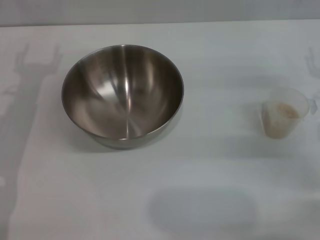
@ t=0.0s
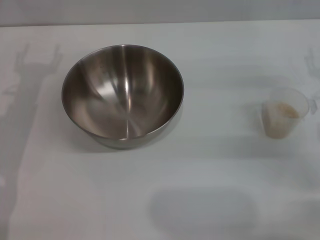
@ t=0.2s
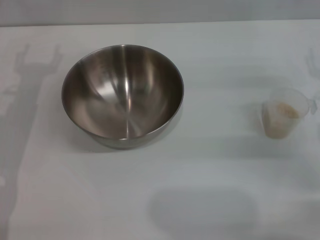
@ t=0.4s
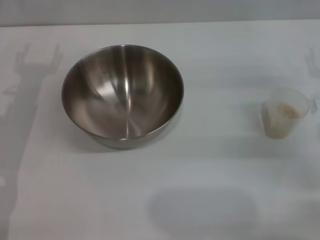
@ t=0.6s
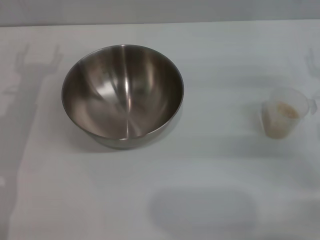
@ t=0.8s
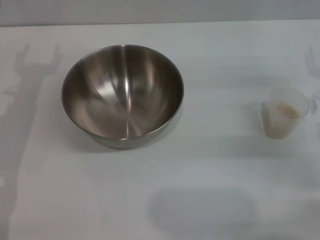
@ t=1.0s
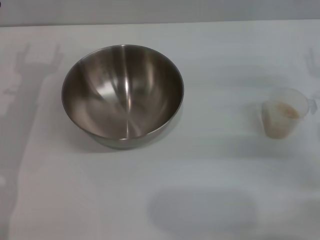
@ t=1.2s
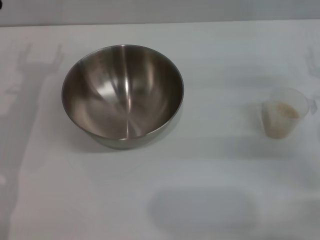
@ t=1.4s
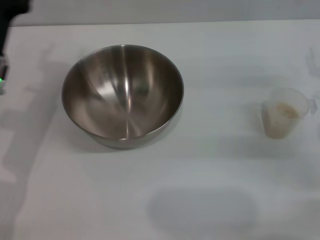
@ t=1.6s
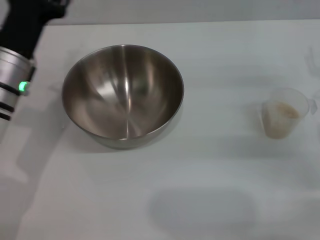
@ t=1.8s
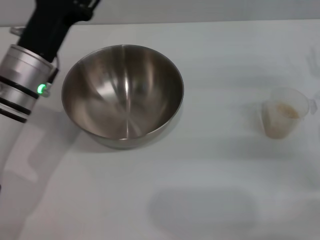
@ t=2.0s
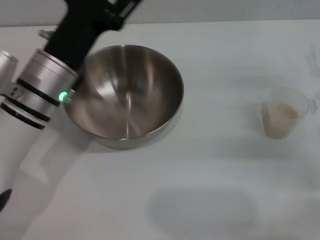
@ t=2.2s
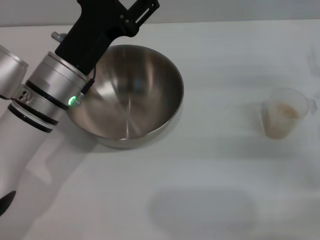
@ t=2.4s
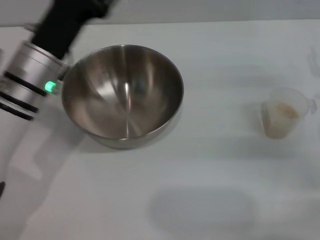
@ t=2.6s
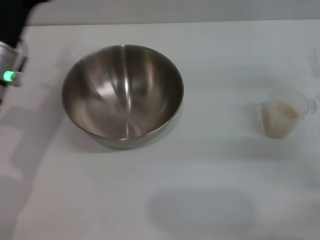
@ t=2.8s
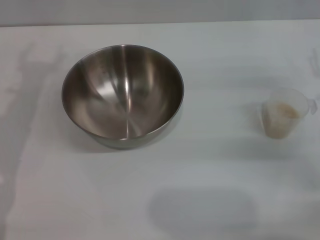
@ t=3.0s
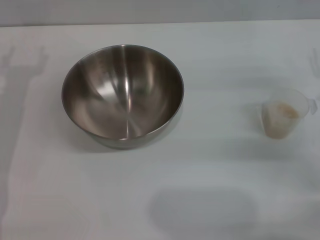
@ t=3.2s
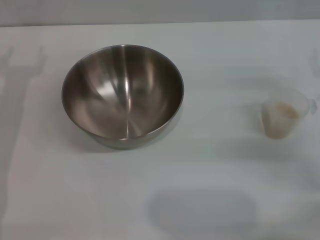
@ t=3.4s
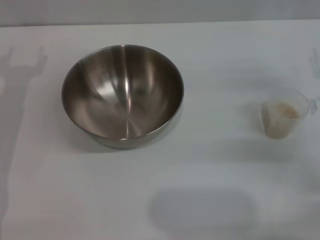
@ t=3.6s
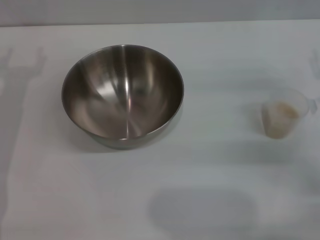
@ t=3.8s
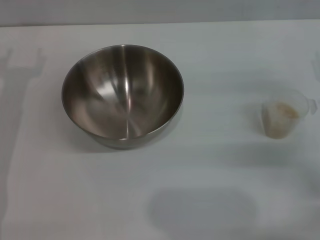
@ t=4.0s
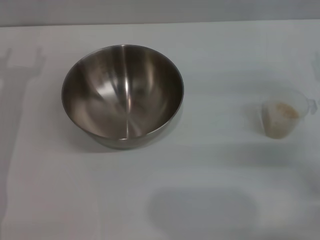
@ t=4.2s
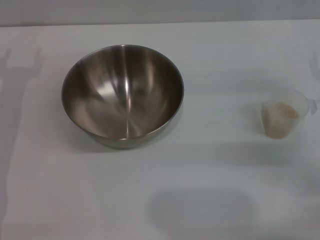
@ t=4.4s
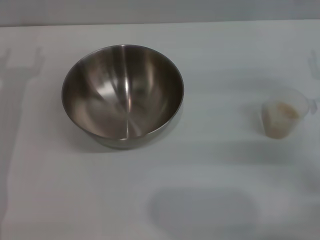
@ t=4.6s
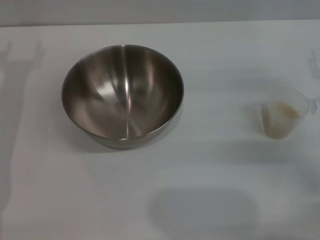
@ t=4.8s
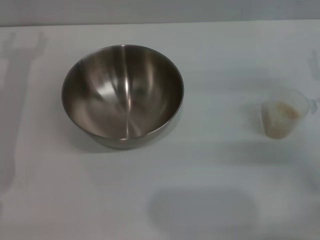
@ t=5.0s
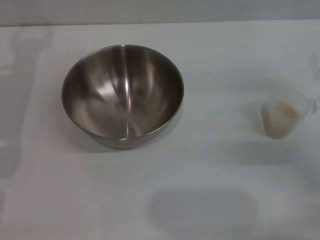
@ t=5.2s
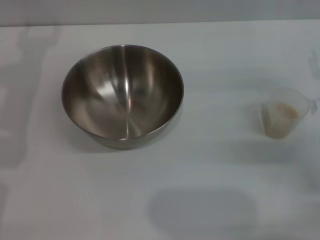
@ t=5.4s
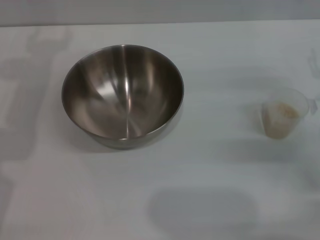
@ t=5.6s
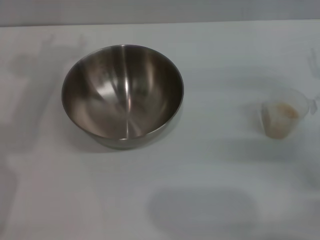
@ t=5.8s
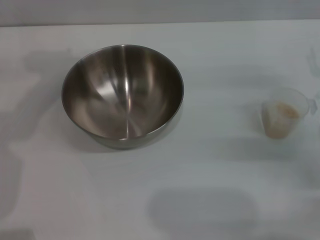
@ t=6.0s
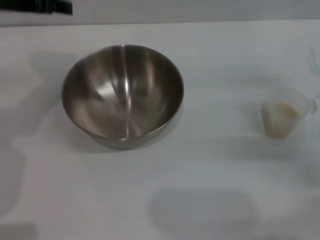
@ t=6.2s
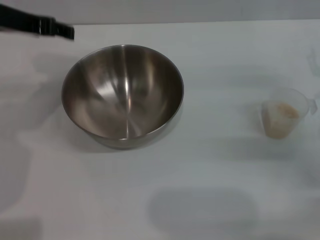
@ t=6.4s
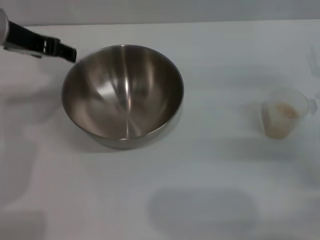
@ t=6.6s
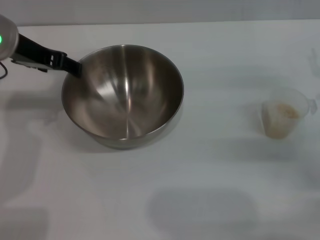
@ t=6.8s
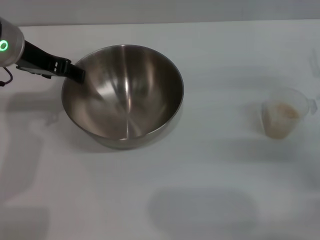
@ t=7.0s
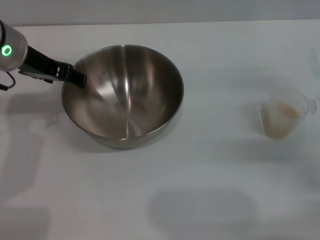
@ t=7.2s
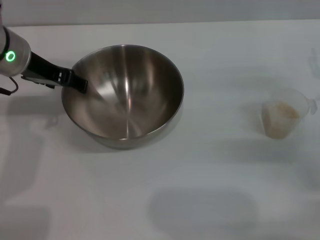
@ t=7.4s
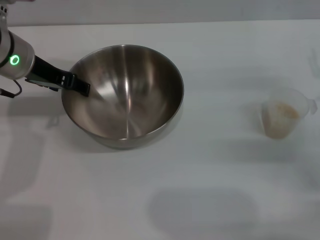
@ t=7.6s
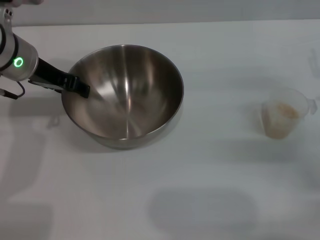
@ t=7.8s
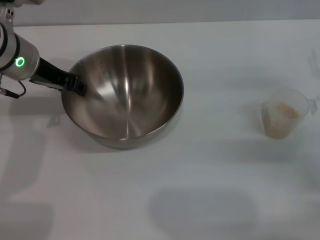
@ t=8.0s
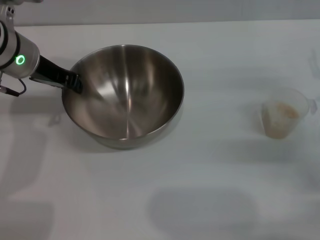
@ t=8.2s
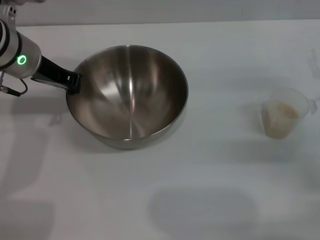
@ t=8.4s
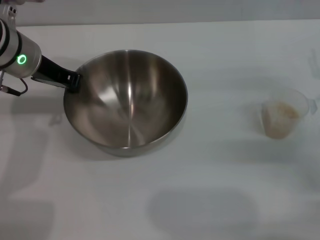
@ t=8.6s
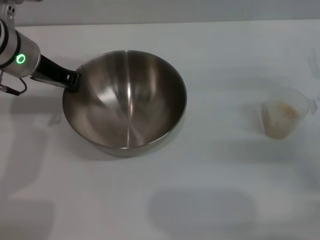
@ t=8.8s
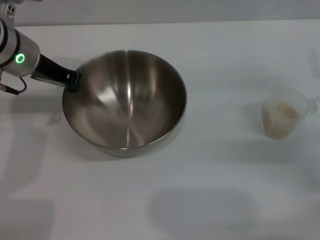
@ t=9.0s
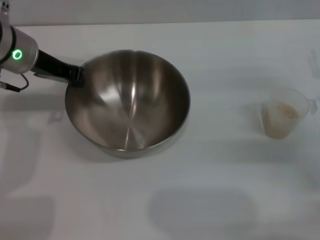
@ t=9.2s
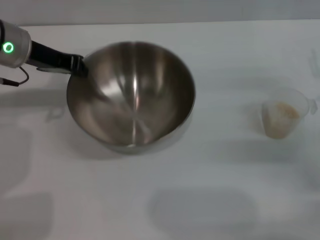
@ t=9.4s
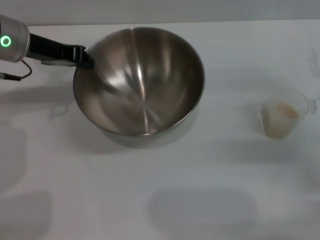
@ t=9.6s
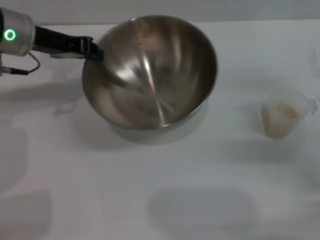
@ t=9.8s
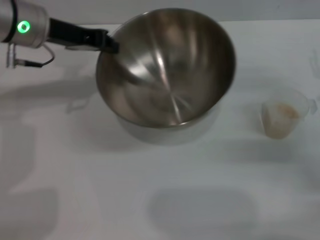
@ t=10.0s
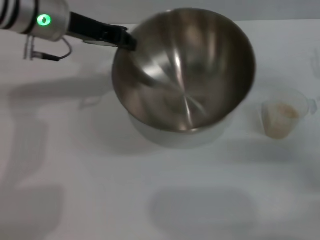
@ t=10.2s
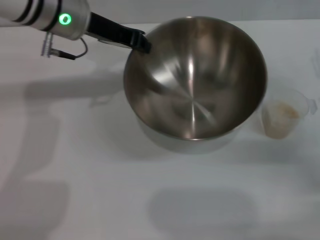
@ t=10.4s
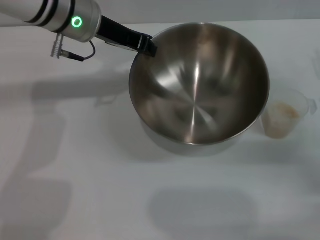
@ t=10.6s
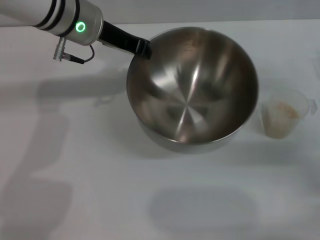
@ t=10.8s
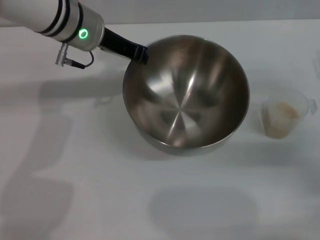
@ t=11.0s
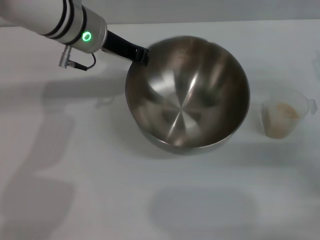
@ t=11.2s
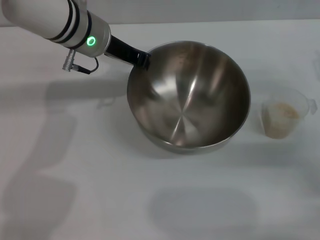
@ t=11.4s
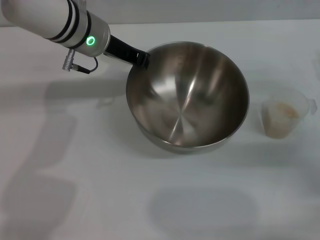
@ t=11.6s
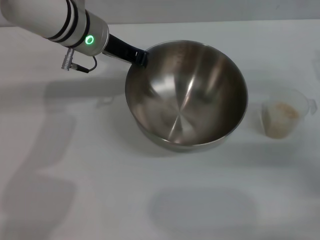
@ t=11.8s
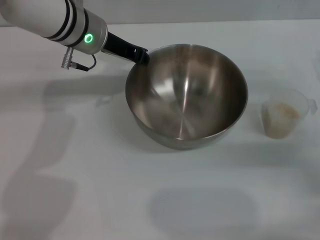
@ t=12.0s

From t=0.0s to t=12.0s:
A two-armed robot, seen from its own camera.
Task of the whole recording: Place the bowl in the middle of the table with one hand and pour the rice from the grain cup into it with the other hand.
Step, from t=0.0s to t=10.0s: Pick up the bowl with the left gripper.
From t=0.0s to t=1.6s: The grippers stay close to where they were, moving slightly.
From t=1.6s to t=3.0s: The left gripper reaches about 10 cm to the right, then returns.
From t=6.0s to t=7.6s: The left gripper goes some 10 cm downward.
From t=7.6s to t=9.0s: The left gripper closes.
From t=9.0s to t=10.4s: The left gripper heads to the right, covering roughly 5 cm.
From t=10.4s to t=12.0s: The grippers stay close to where they were, moving slightly.

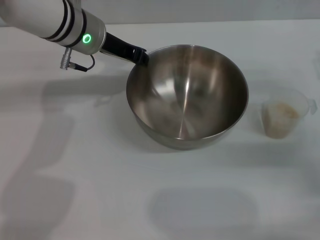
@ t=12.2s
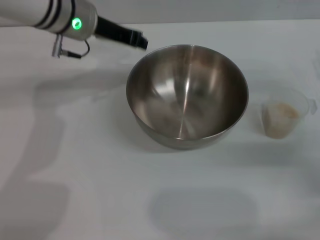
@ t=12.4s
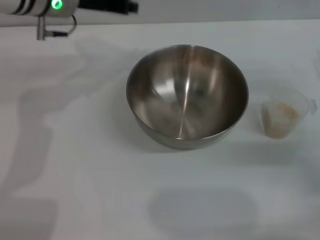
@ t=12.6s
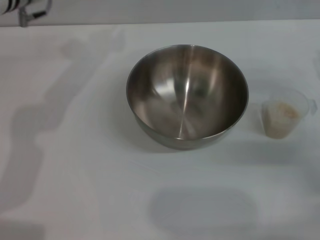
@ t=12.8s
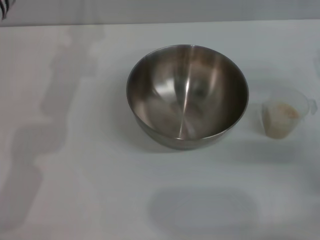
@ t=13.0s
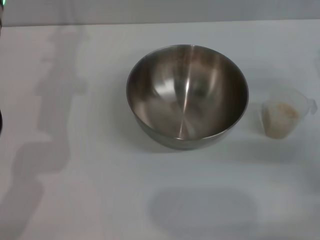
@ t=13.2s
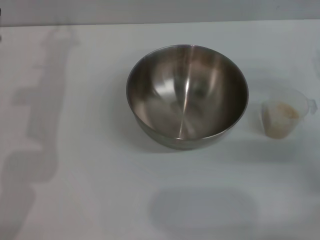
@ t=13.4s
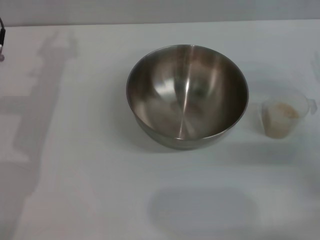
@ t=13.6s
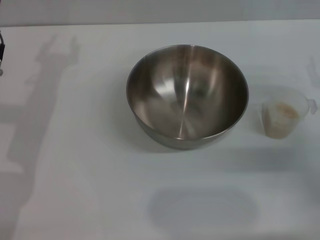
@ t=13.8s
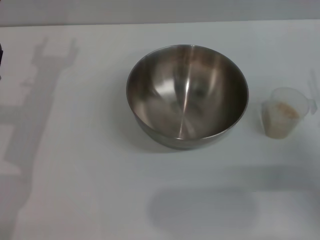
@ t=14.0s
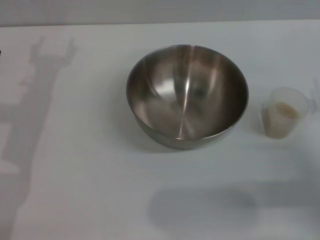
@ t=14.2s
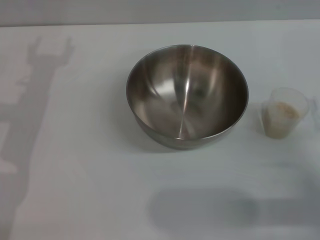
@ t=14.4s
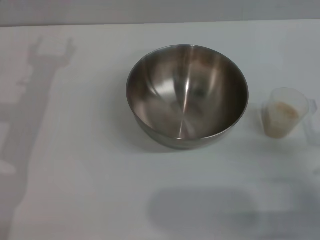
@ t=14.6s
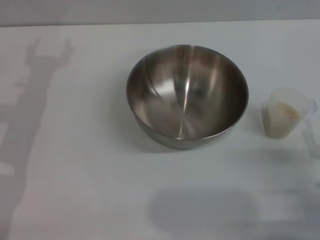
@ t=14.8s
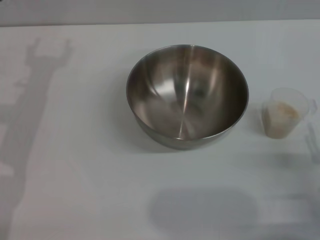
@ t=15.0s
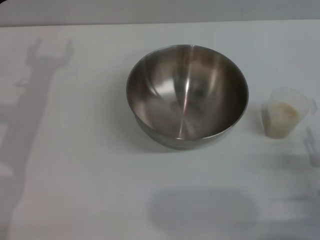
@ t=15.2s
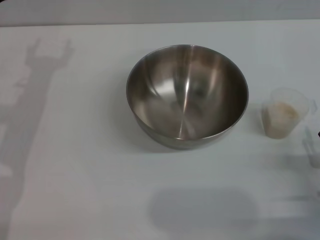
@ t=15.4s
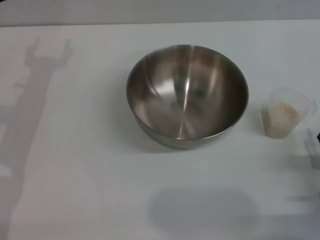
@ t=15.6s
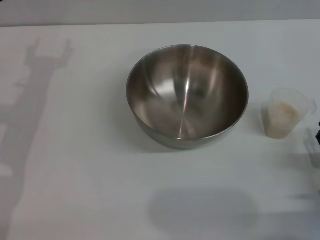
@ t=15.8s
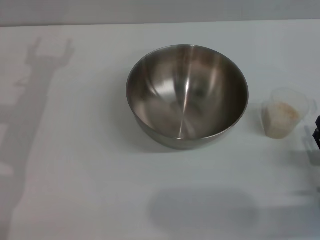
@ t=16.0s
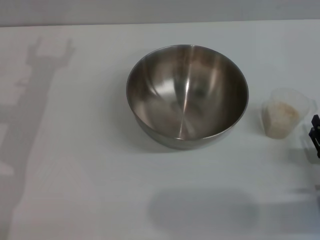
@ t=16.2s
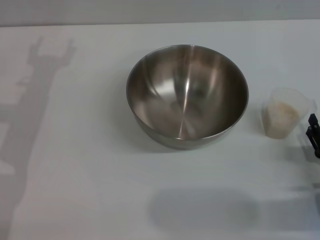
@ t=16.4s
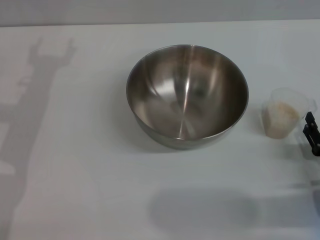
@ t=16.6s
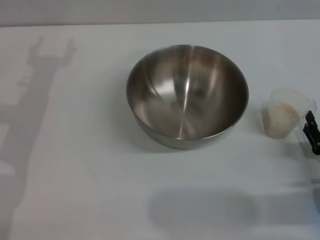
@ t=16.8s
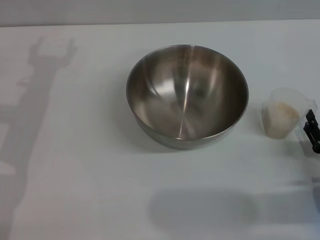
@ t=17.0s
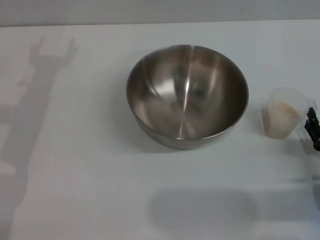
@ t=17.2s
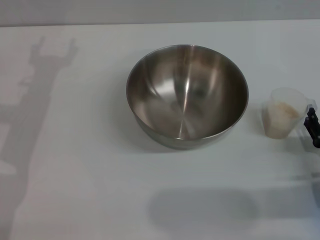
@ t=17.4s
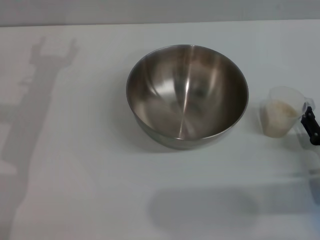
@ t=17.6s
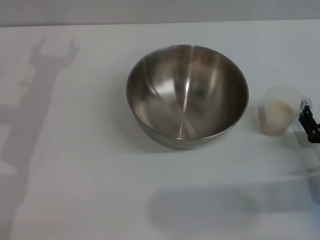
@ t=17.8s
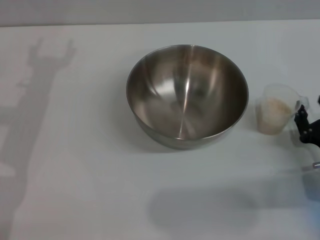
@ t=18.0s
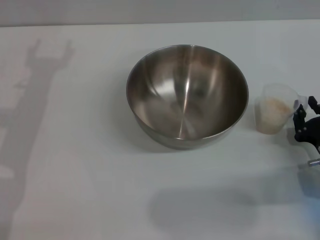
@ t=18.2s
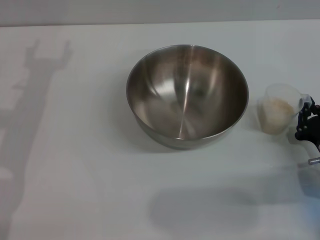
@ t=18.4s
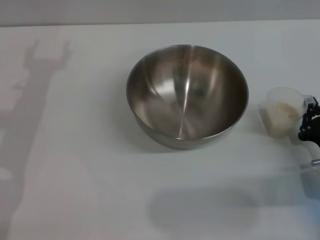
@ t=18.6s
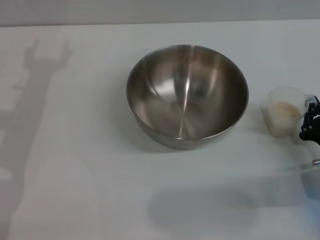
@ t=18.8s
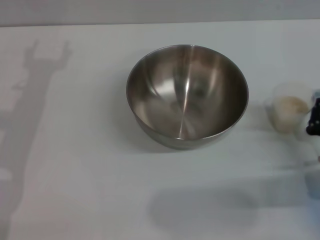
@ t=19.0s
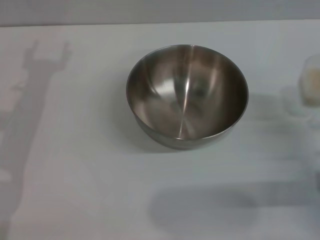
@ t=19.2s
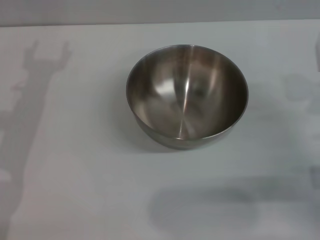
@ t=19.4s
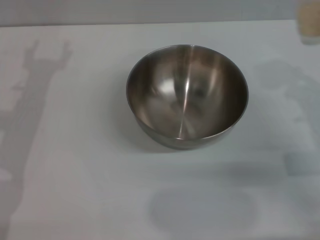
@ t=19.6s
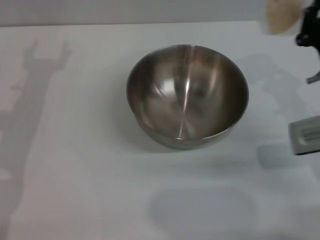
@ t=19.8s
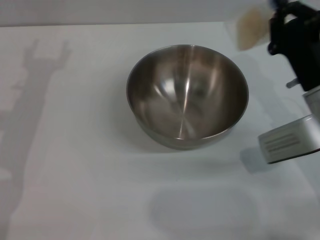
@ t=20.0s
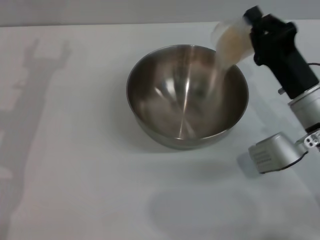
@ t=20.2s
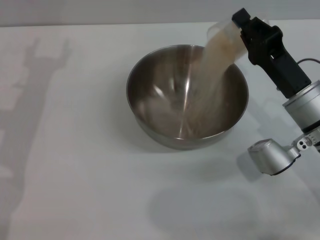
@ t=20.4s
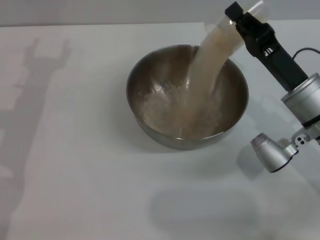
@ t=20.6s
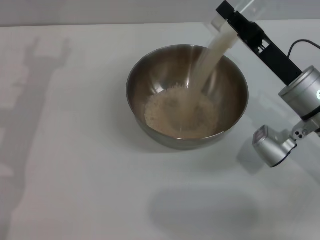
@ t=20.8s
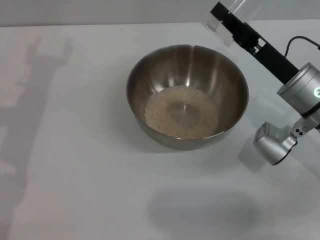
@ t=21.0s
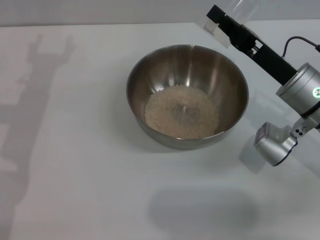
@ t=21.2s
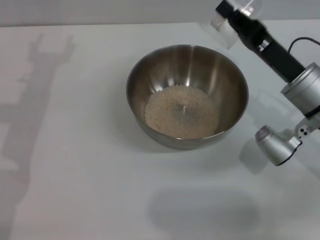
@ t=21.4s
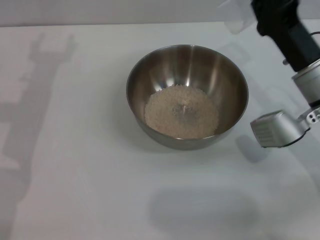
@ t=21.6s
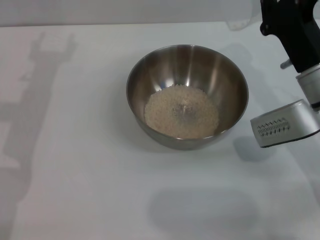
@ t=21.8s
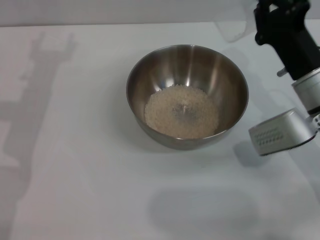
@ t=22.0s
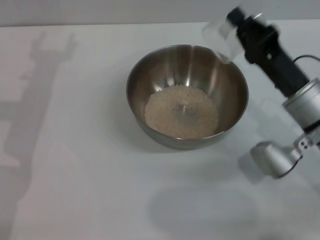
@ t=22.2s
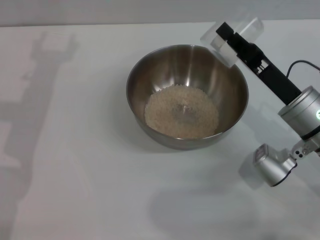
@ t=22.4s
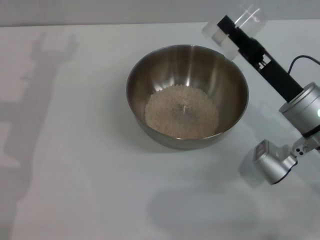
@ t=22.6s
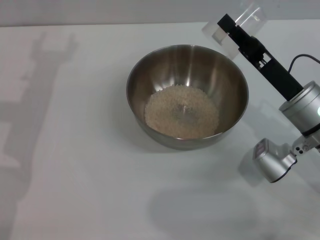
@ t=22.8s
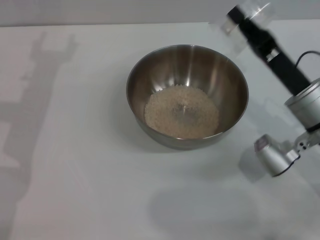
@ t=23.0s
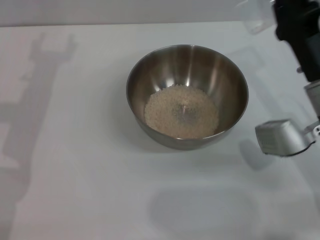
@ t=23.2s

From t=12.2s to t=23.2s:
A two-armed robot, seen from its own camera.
Task of the whole recording: Place the bowl in the middle of the table with one hand and pour the rice from the grain cup into it with the other hand.
Step, from t=12.6s to t=19.4s: Pick up the cup with rice in it with the right gripper.
Step, from t=19.6s to t=21.0s: Pour the rice from the cup into the bowl with the right gripper.
From t=12.2s to t=13.8s: The left gripper travels to the left and backward by some 15 cm.
From t=13.8s to t=15.4s: The right gripper goes roughly 15 cm backward and downward.
From t=15.4s to t=17.0s: The grippers stay close to where they were, moving slightly.
From t=17.0s to t=18.4s: The right gripper closes its fingers.
From t=18.4s to t=20.0s: The right gripper shifts approximately 15 cm upward, forward and to the left, and closes its fingers.
